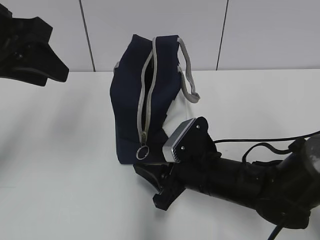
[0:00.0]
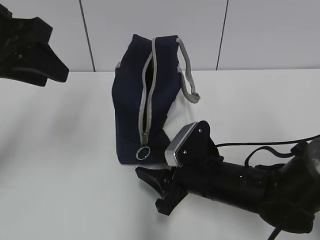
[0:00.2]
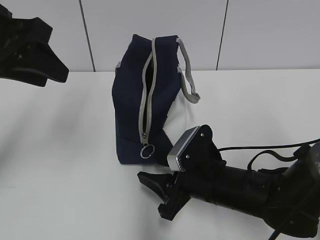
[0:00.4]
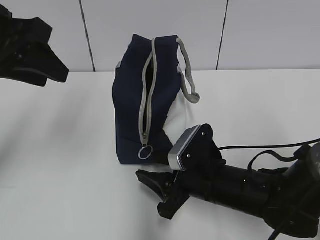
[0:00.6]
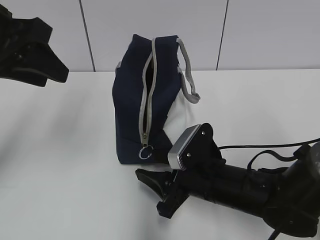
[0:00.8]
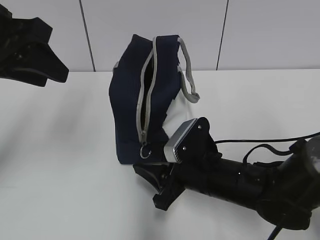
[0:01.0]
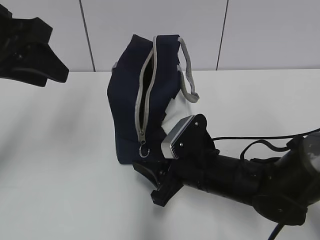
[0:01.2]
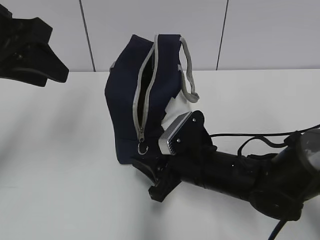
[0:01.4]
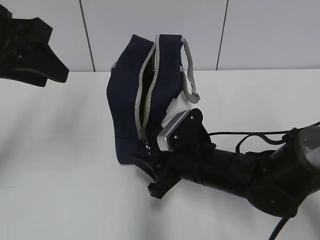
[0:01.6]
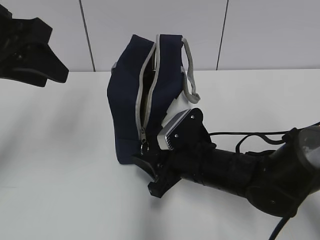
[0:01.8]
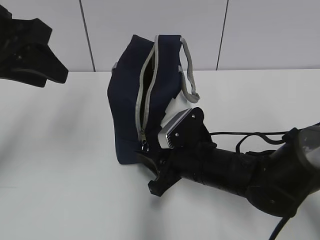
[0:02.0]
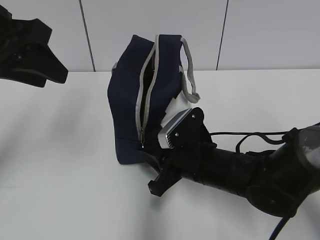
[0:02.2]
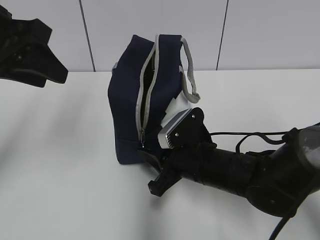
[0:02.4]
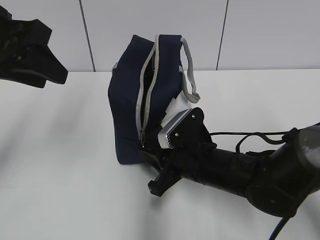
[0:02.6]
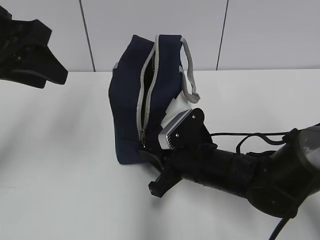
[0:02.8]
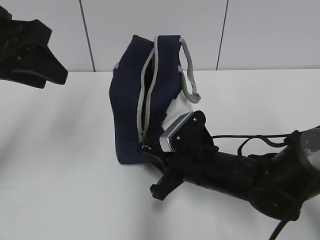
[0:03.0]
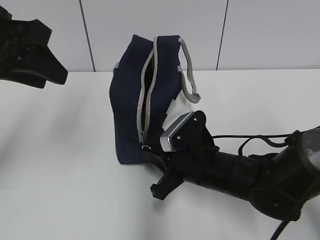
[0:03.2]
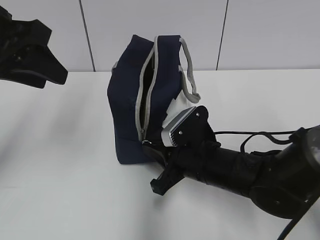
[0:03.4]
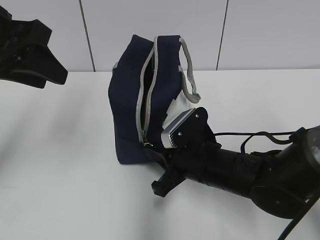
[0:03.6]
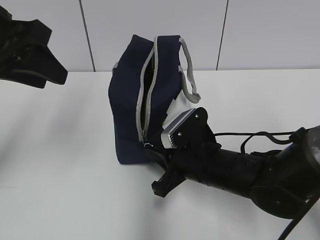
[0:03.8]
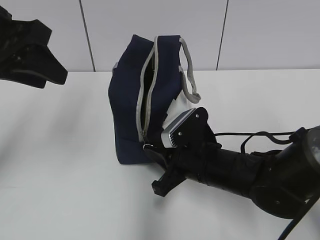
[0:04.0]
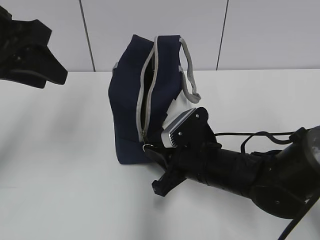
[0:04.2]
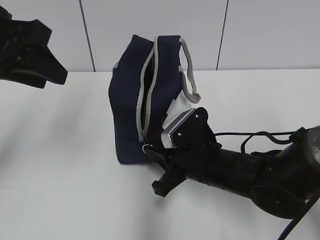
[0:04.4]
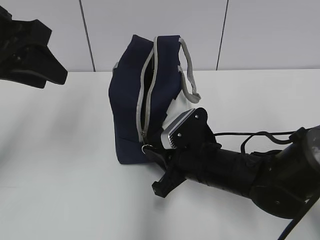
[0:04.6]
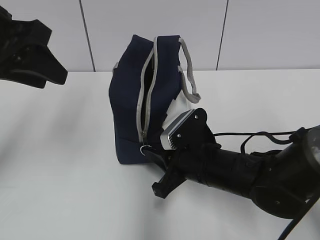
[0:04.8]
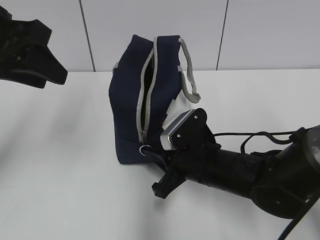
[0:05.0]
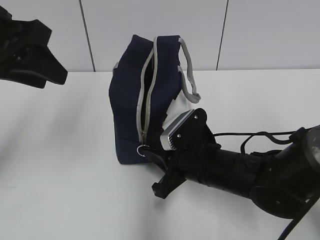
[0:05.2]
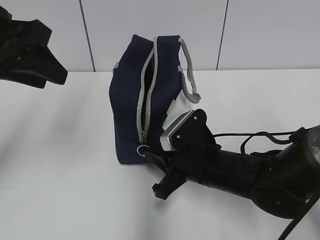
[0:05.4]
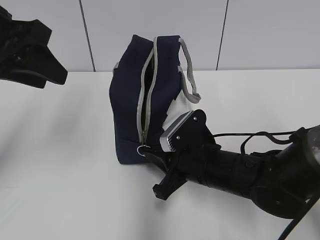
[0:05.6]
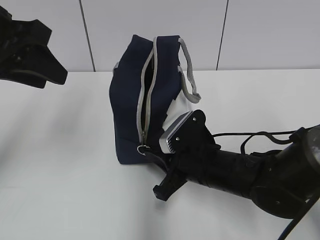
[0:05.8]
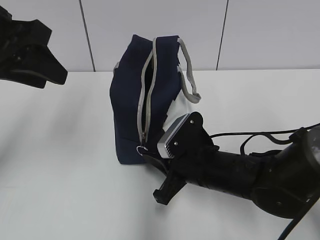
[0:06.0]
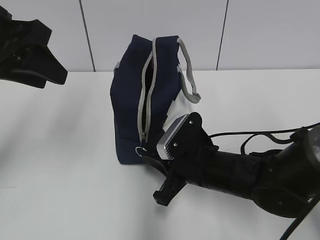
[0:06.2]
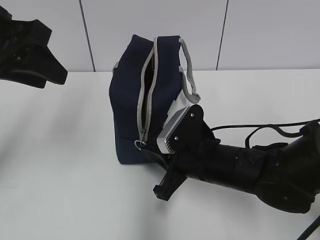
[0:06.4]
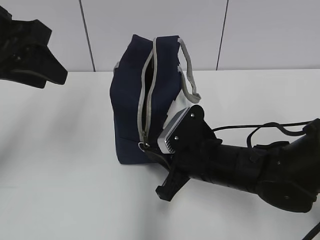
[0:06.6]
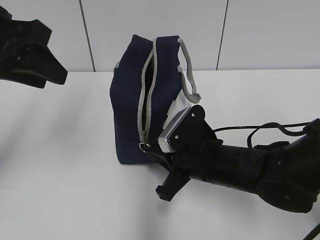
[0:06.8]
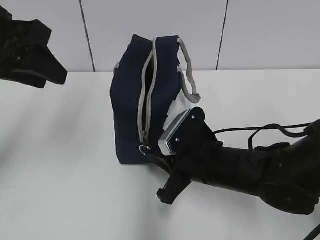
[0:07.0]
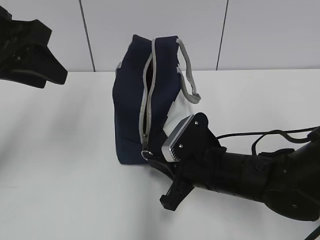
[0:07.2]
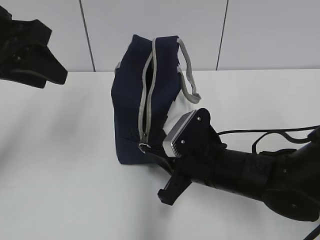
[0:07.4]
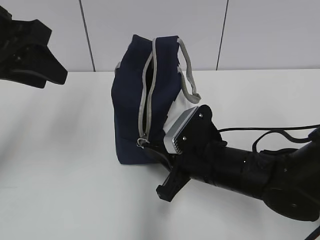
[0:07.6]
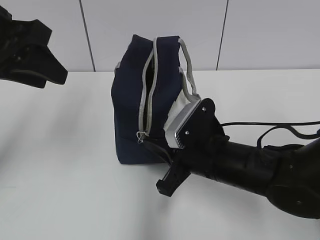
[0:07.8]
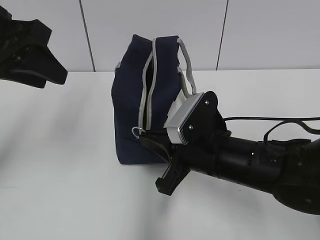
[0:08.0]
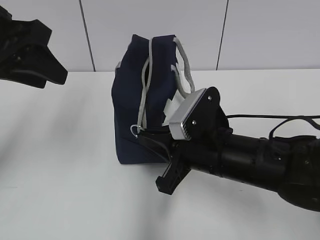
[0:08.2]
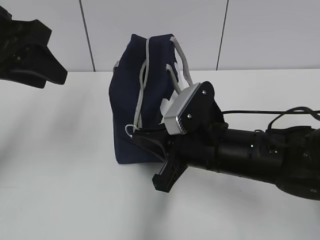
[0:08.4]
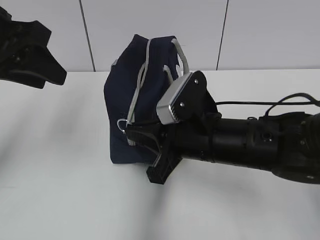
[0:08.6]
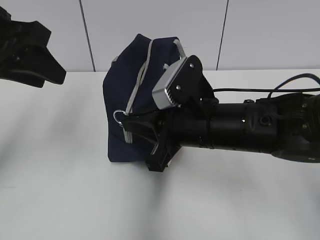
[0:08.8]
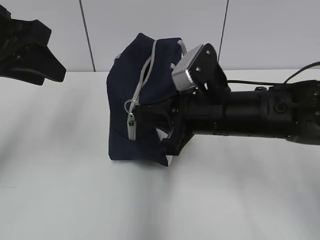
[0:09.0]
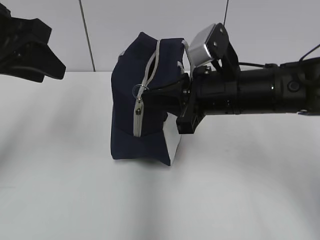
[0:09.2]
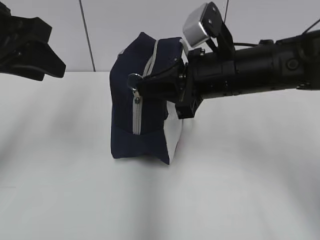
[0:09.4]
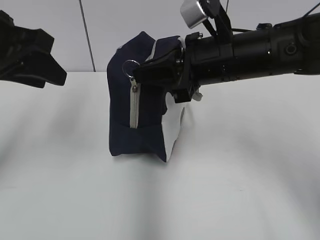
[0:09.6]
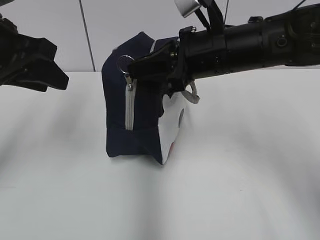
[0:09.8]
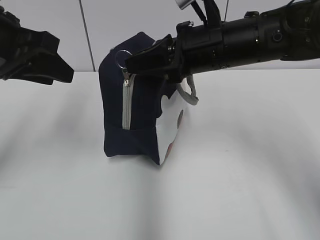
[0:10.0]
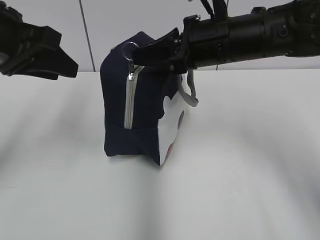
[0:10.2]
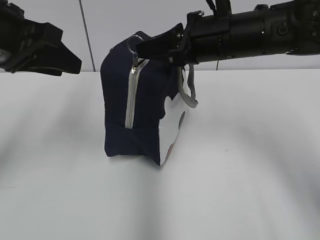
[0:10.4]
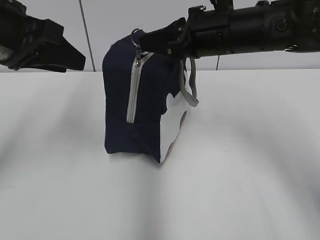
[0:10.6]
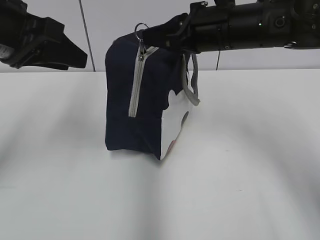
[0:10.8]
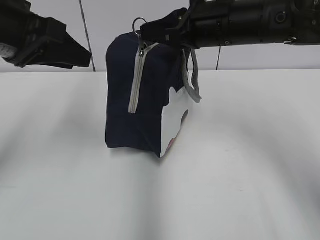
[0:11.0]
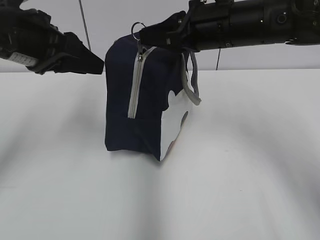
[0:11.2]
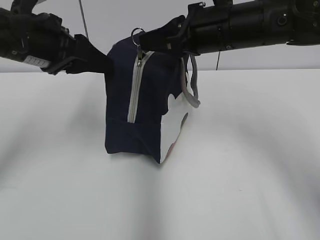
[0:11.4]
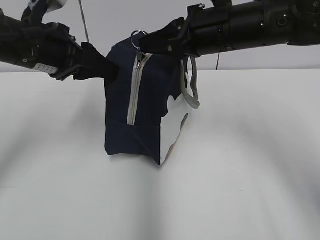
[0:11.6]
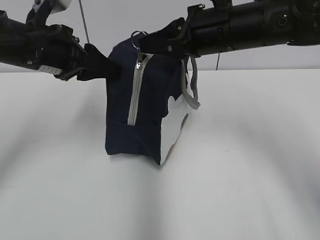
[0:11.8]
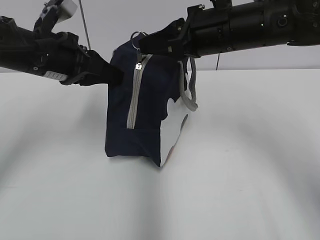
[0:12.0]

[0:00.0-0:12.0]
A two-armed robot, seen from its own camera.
0:00.0 to 0:01.6: Neither gripper changes place.
0:01.6 to 0:03.0: The right gripper closes.
0:03.0 to 0:04.4: Both grippers stay put.
0:04.4 to 0:07.6: The grippers stay close to where they were, moving slightly.
0:07.6 to 0:09.0: The right gripper goes roughly 10 cm upward.
0:09.0 to 0:10.4: The right gripper travels upward and forward by some 10 cm.
0:10.4 to 0:12.0: The left gripper moves downward and forward, roughly 10 cm.

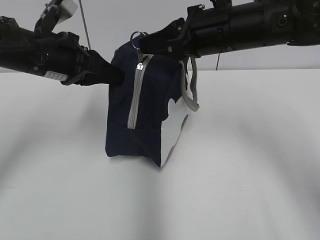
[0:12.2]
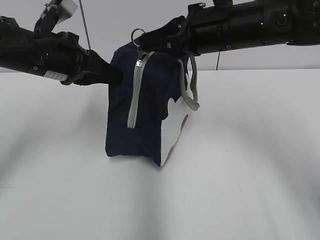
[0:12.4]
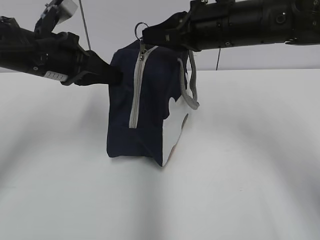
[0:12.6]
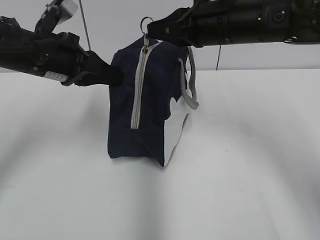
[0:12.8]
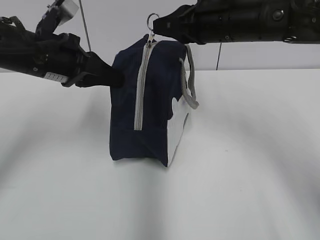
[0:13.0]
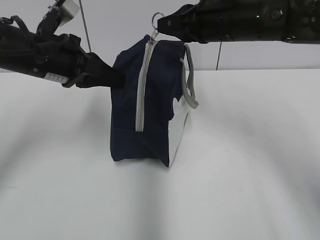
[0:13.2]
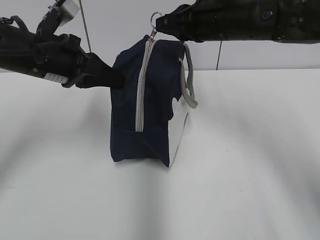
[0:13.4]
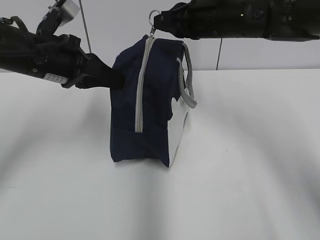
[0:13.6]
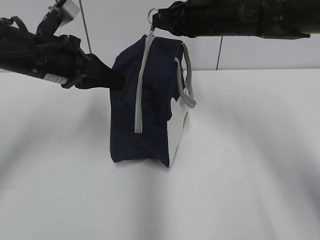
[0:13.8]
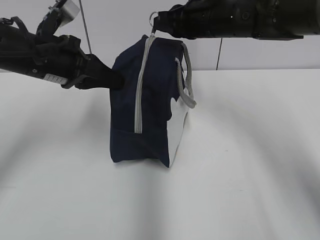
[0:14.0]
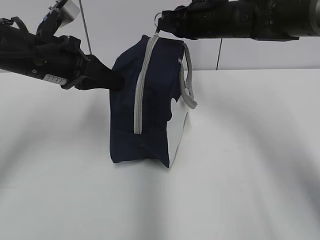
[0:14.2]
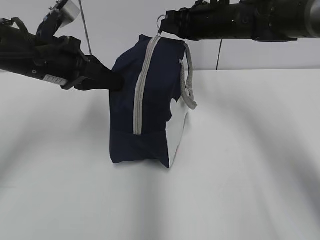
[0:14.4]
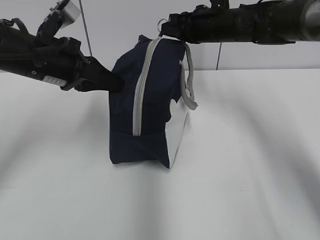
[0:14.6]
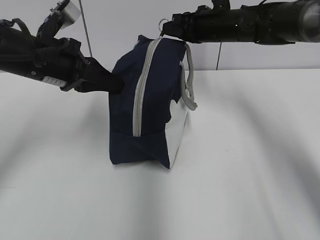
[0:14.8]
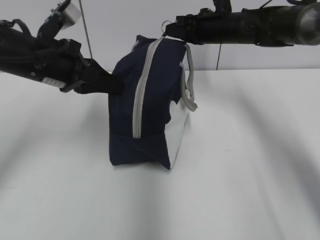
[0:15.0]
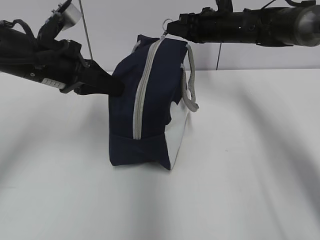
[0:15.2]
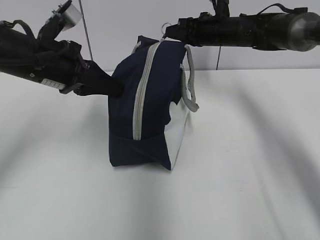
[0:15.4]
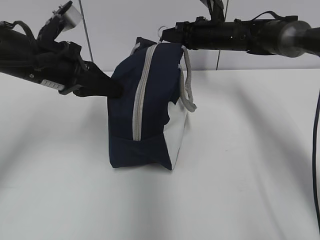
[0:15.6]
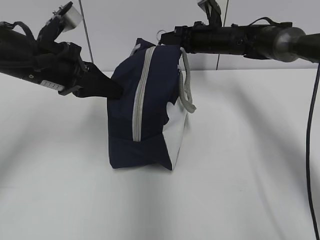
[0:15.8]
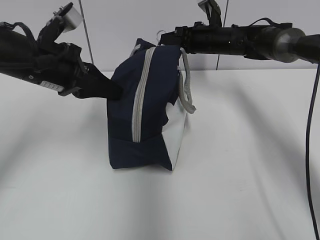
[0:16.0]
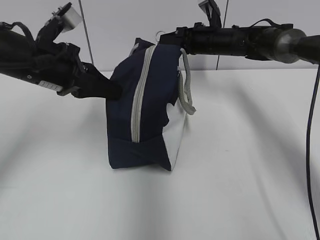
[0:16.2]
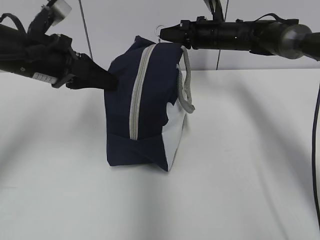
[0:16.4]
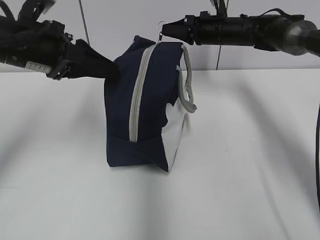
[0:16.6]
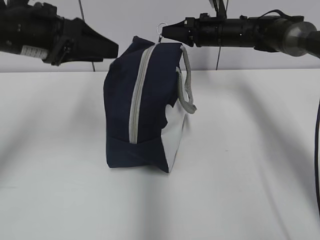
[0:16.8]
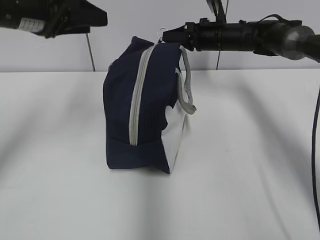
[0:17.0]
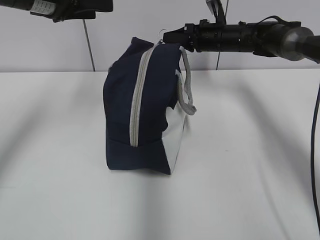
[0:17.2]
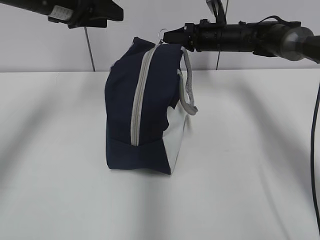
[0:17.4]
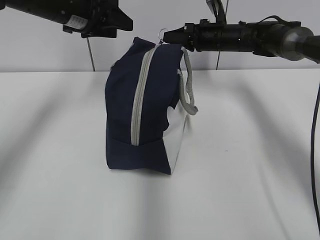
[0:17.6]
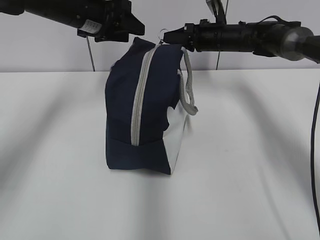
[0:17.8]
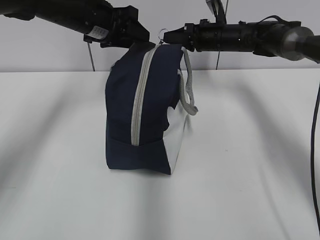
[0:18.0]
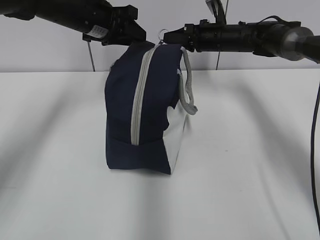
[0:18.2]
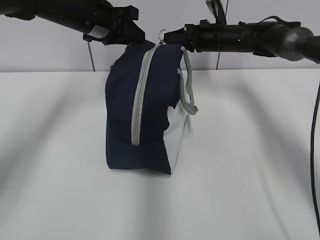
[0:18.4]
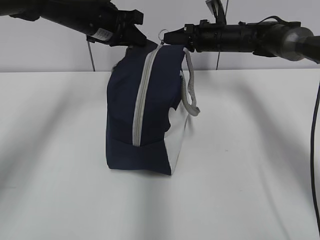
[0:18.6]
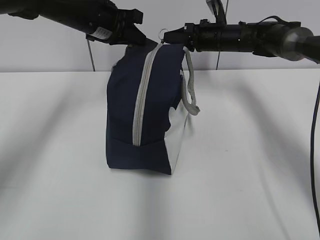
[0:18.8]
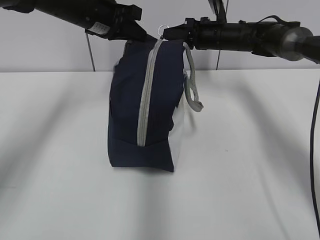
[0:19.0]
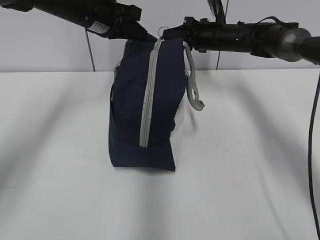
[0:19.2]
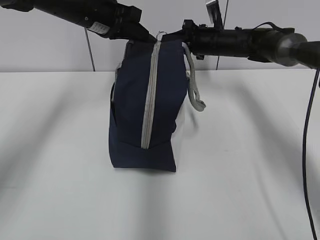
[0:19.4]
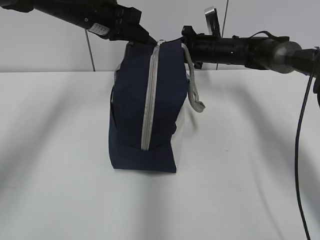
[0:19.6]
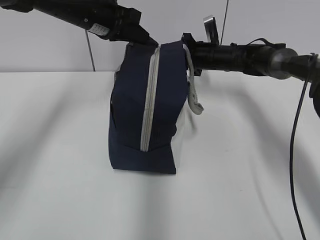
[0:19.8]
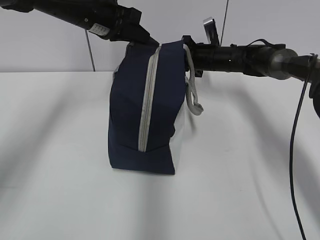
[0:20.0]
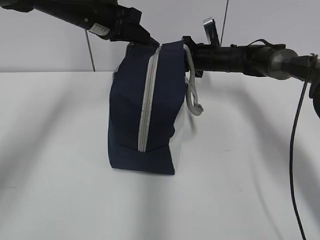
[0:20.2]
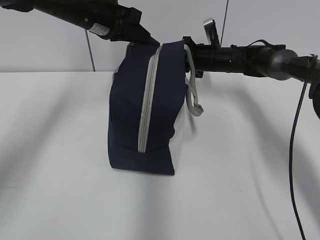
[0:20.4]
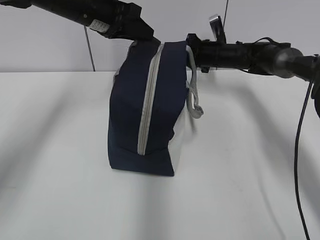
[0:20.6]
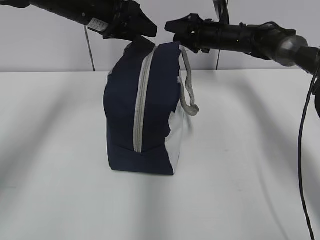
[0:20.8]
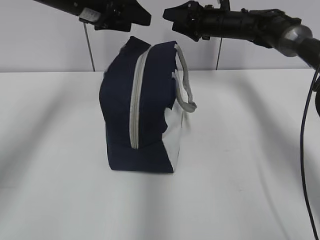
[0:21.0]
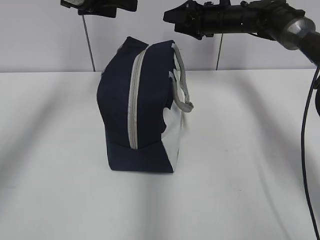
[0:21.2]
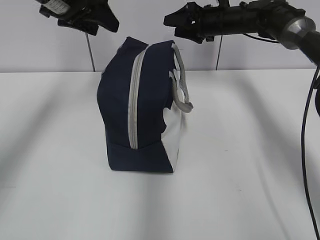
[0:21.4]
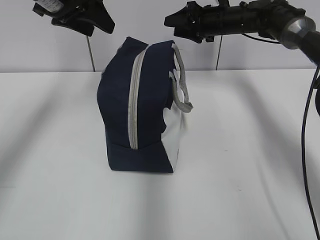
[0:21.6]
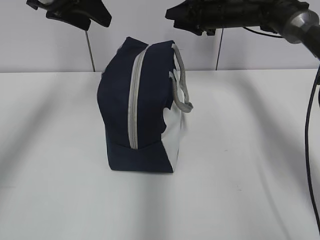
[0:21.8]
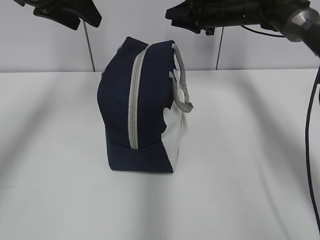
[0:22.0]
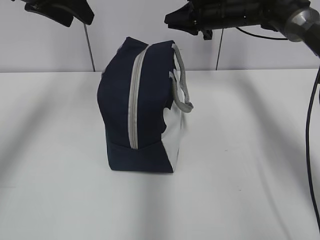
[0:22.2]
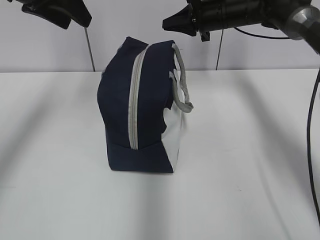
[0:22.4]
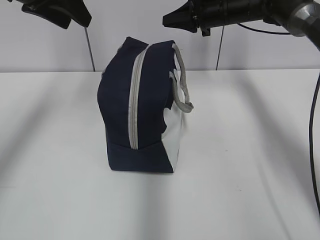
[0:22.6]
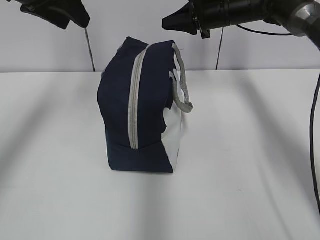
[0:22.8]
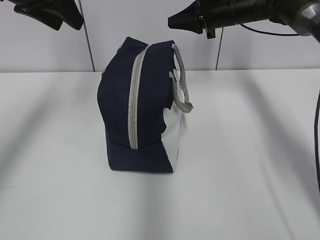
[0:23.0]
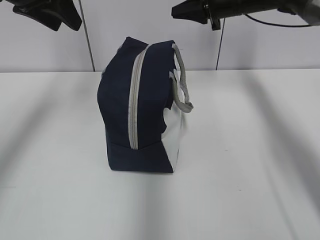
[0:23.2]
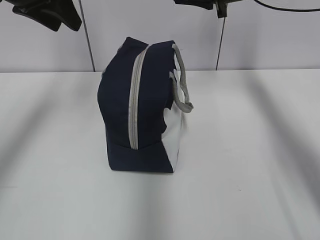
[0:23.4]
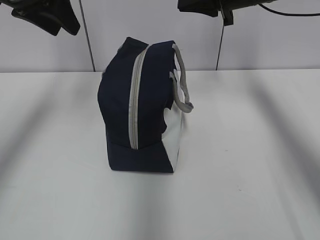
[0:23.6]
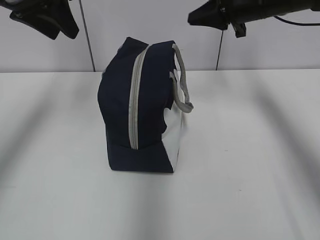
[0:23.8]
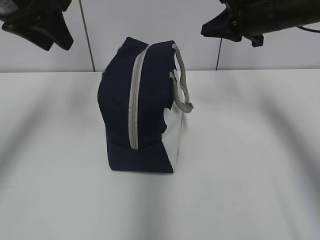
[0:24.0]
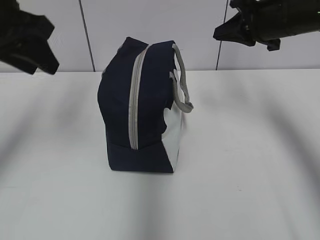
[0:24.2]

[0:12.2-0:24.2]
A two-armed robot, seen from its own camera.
Step, 0:16.6 to 0:20.4: Pull the zipper with your right hand.
0:12.2 to 0:13.8: The right gripper goes approximately 5 cm forward.
0:13.8 to 0:15.2: The right gripper travels forward and downward by about 10 cm.
0:15.2 to 0:16.6: The left gripper opens up.
0:16.6 to 0:18.2: The left gripper moves forward, roughly 15 cm.
0:18.2 to 0:19.8: The left gripper closes. The right gripper shifts about 5 cm downward.
0:19.8 to 0:21.2: The right gripper moves upward, approximately 10 cm, and opens up; the left gripper moves upward, approximately 5 cm, and opens up.
0:21.2 to 0:22.6: The left gripper heads backward, covering roughly 5 cm, while the right gripper closes.
0:22.6 to 0:24.2: The left gripper moves backward, some 5 cm. Meanwhile the right gripper is displaced backward by some 15 cm.
